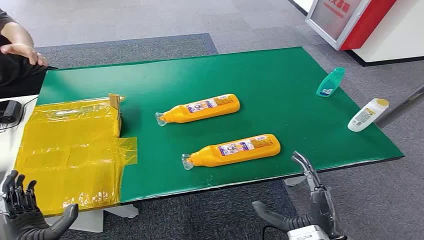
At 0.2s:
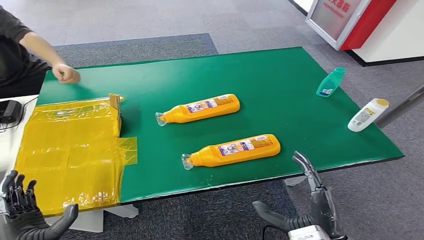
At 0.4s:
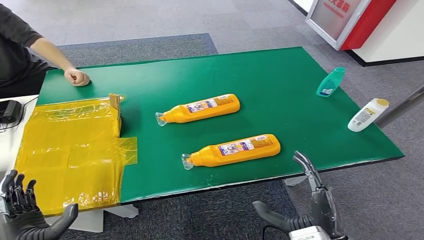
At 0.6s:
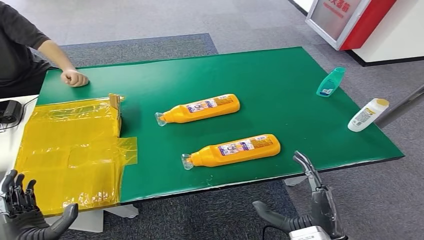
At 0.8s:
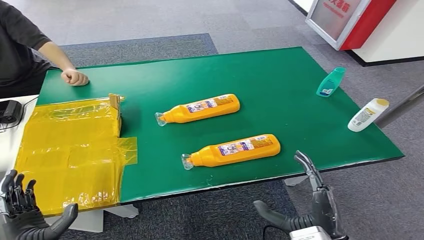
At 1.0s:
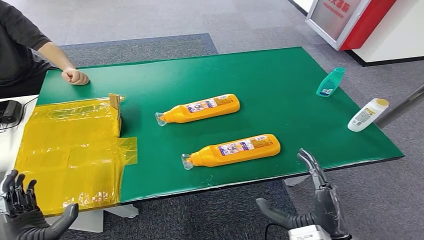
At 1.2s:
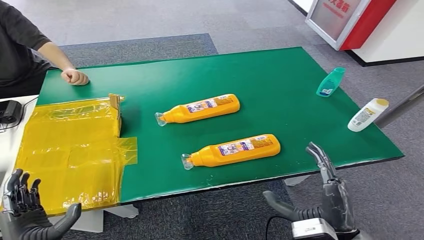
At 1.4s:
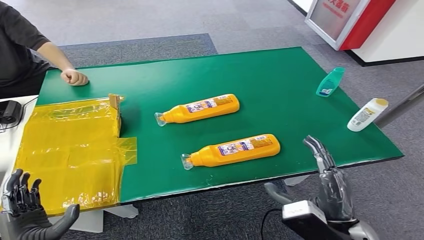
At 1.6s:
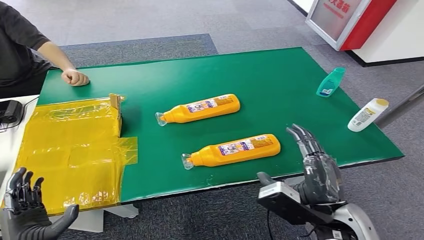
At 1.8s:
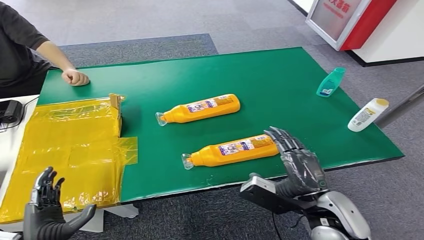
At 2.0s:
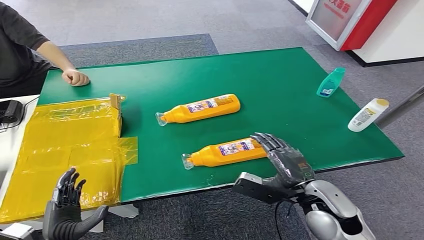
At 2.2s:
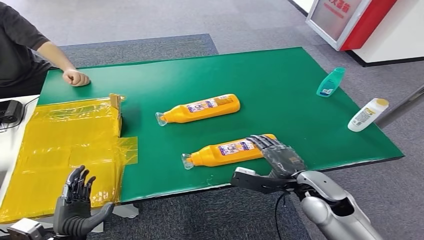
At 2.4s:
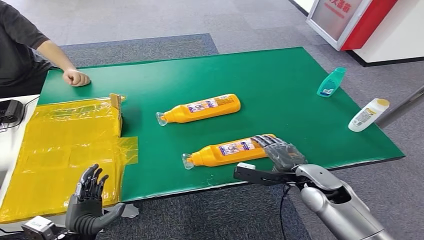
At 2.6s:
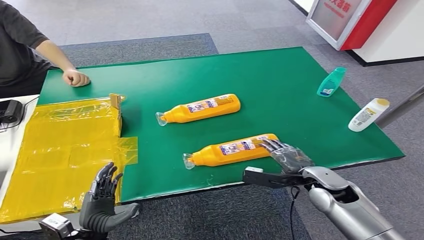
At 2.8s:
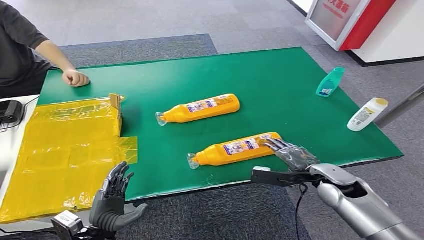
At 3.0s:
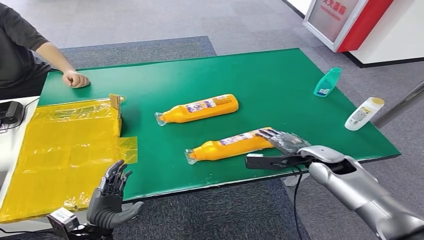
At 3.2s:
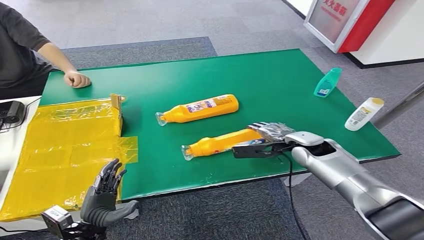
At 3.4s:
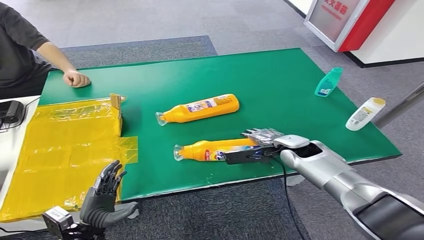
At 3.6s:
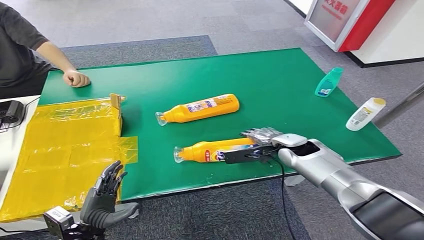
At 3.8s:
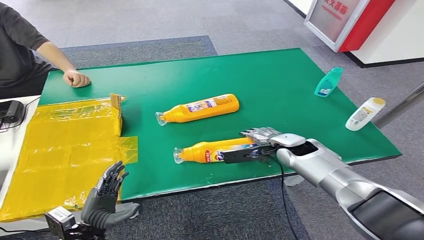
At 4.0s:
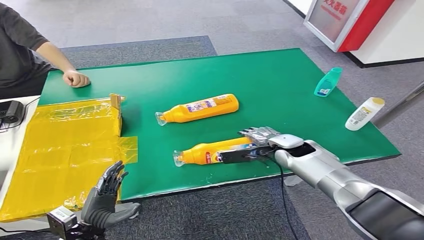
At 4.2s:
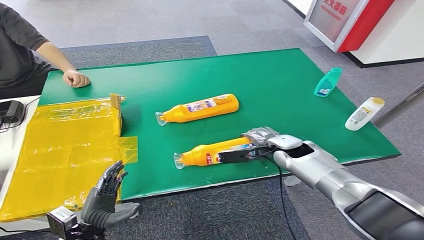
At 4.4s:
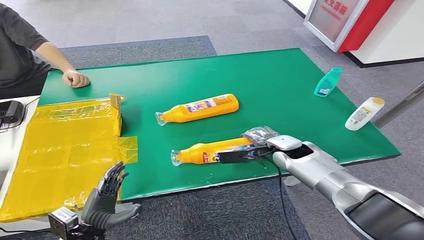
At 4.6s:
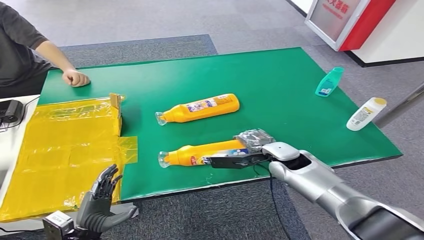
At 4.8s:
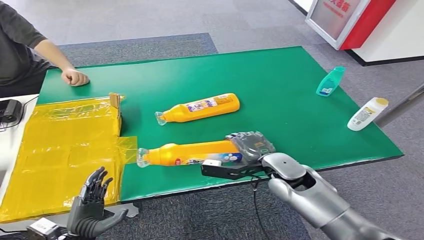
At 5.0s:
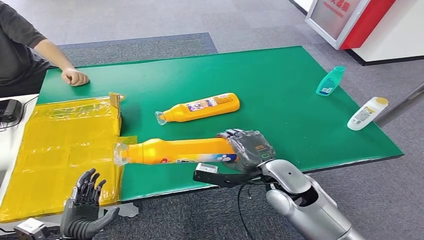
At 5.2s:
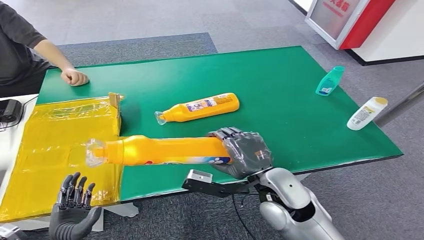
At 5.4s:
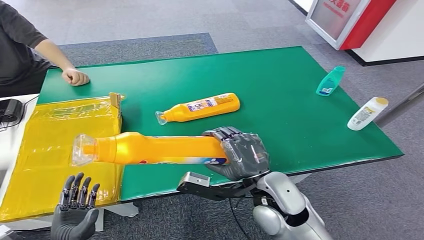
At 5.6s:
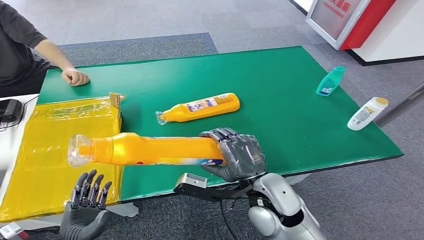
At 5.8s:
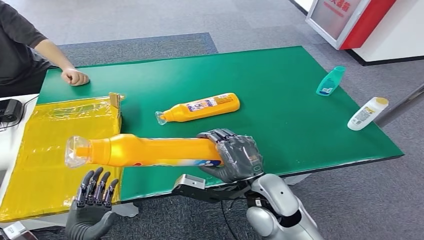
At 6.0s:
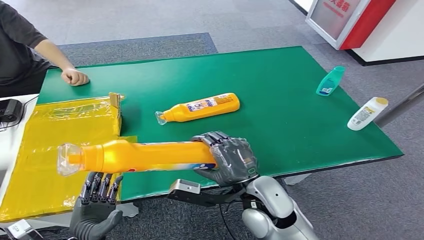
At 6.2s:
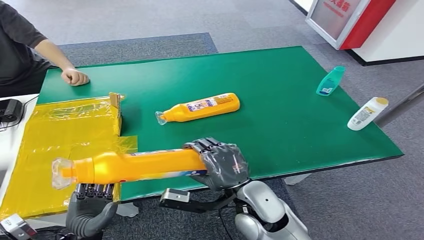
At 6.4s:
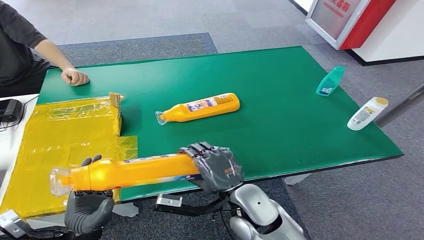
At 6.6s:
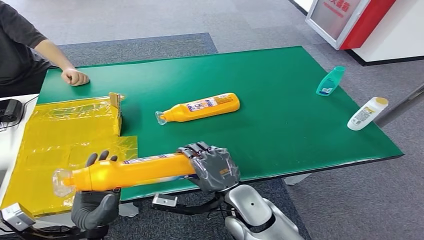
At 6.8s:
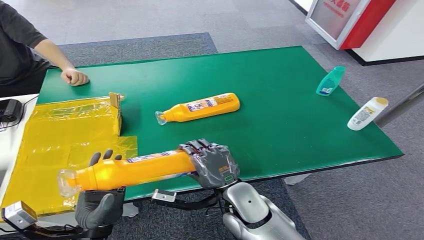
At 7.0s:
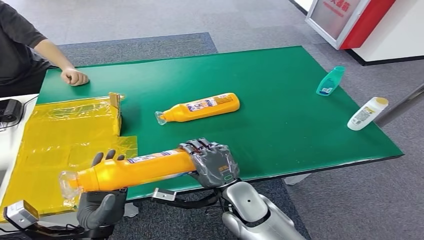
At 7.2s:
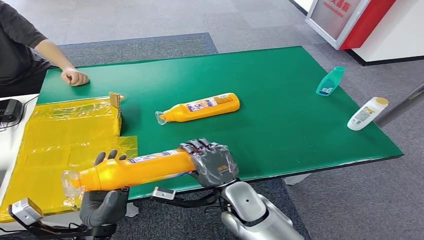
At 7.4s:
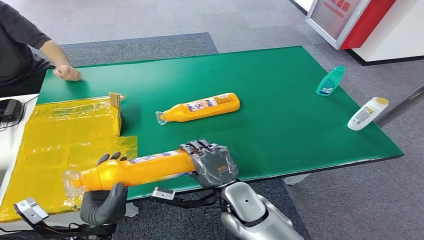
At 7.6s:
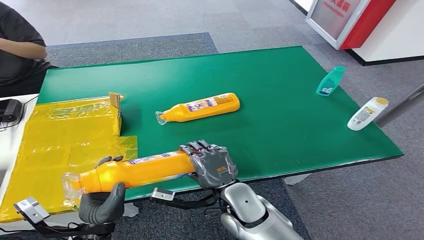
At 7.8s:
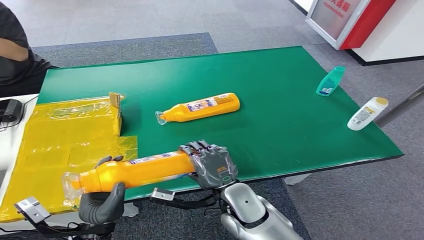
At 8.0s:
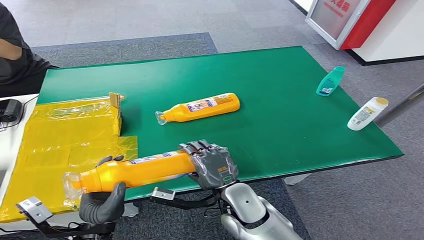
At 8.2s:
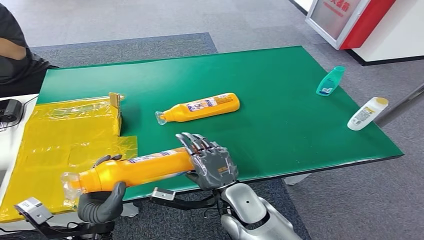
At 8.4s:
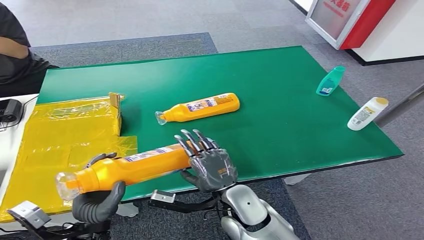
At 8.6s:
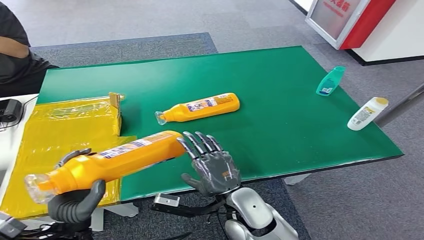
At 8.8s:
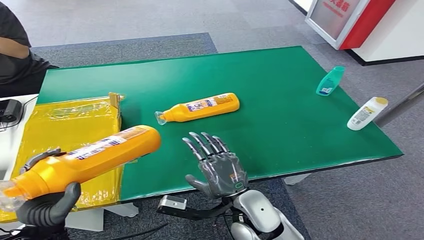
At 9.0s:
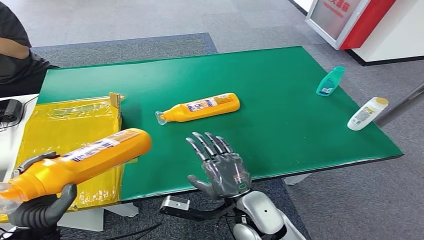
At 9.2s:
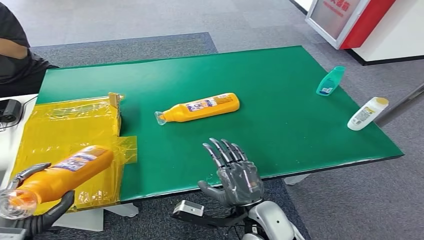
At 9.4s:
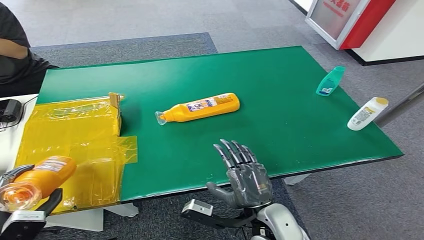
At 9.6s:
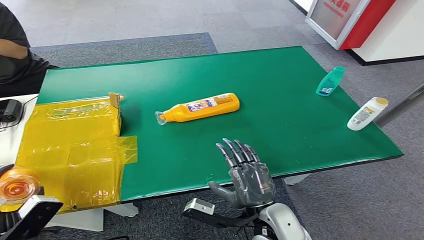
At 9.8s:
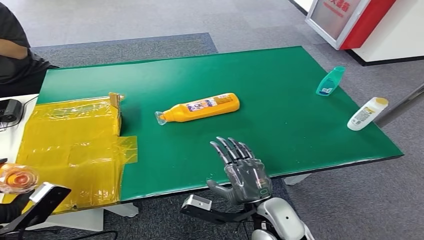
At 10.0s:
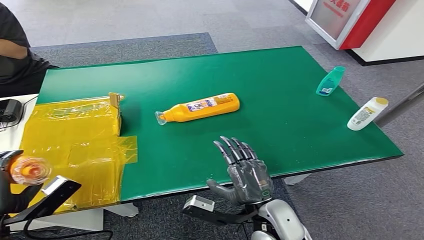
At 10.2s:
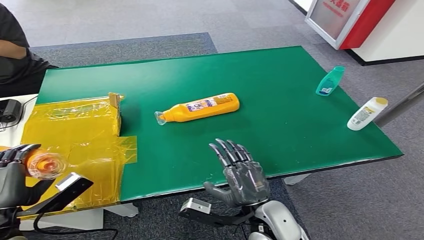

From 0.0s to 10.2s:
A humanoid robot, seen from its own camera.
Step, from 0.0s to 5.4s: Pick up the bottle from the table.
From 3.0s to 4.4s: The right hand travels to the left and forward by some 10 cm.
From 5.8s to 7.2s: The left hand shifts roughly 5 cm upward, while the right hand moves downward, about 5 cm.
From 7.2s to 8.8s: The left hand goes approximately 5 cm to the left.
From 8.8s to 10.2s: The left hand shifts approximately 10 cm to the left and upward.

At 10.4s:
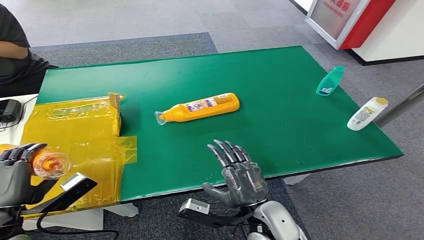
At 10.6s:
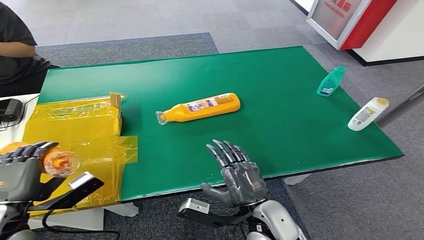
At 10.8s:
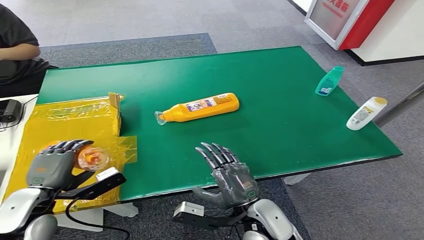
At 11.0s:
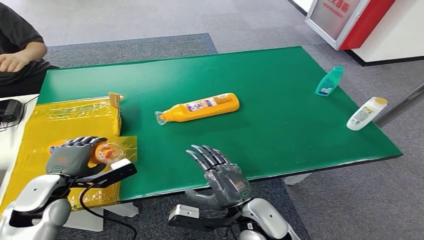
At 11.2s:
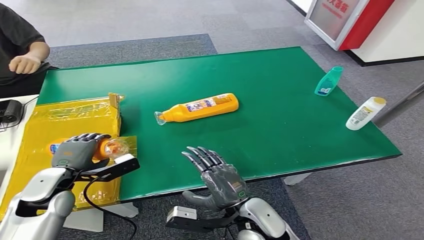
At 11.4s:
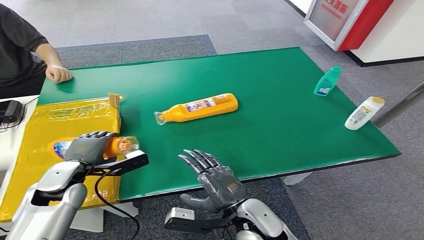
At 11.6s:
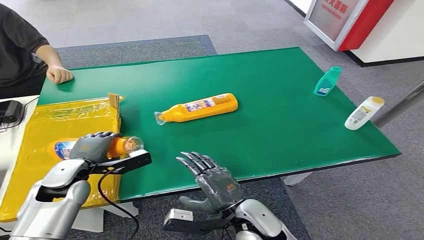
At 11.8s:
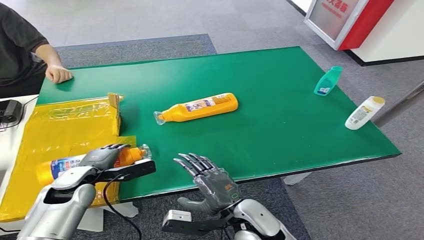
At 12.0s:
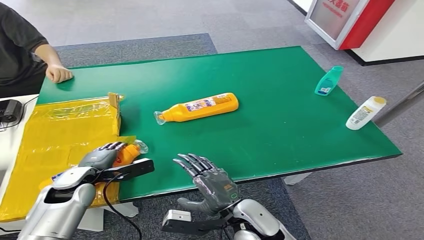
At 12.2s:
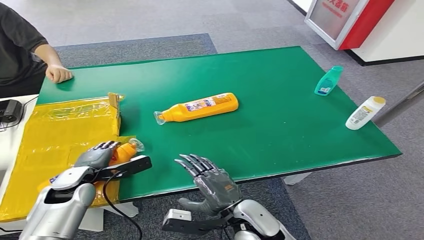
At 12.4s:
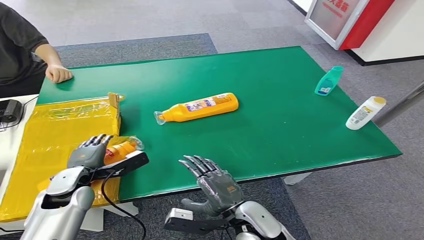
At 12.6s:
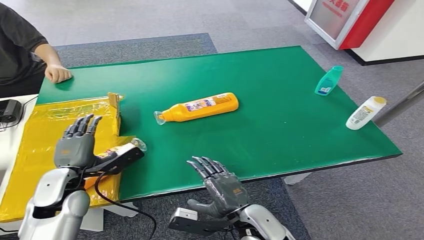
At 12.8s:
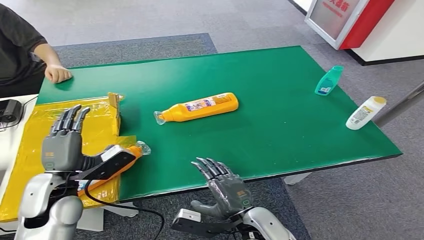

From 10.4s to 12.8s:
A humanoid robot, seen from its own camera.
Step, from 10.4s to 12.8s: Turn the bottle to the front side.
From 11.6s to 12.8s: The left hand travels backward by about 5 cm.
